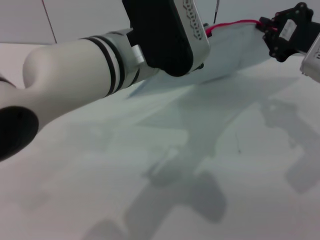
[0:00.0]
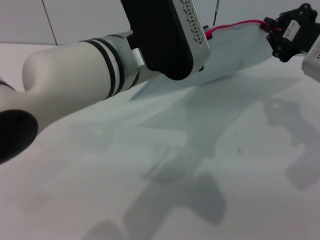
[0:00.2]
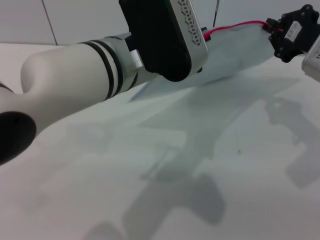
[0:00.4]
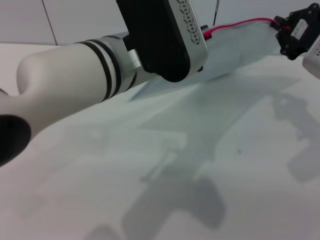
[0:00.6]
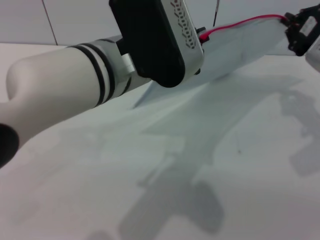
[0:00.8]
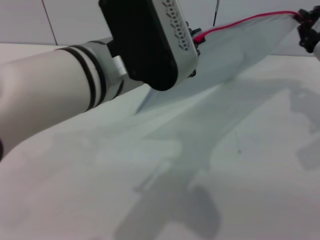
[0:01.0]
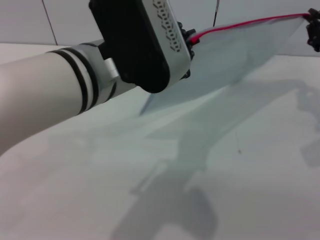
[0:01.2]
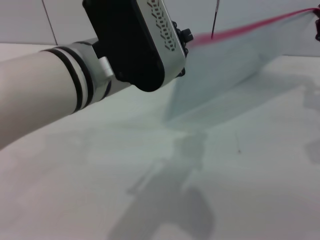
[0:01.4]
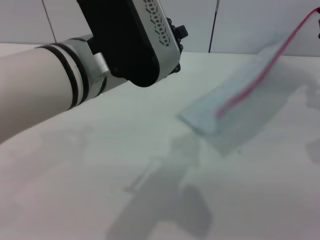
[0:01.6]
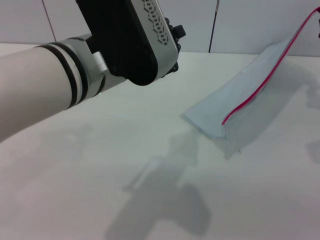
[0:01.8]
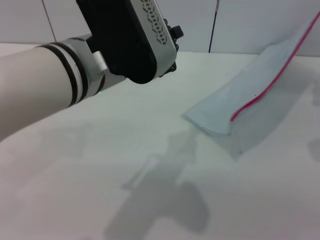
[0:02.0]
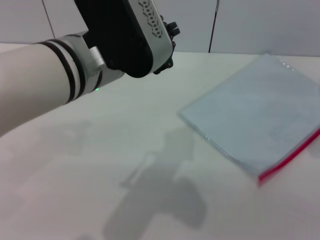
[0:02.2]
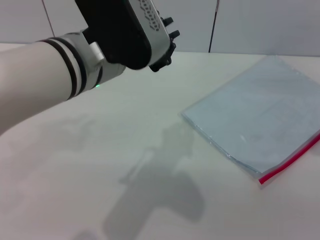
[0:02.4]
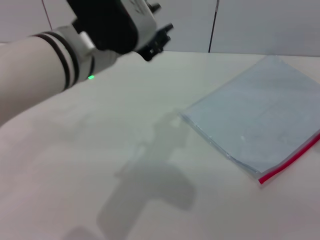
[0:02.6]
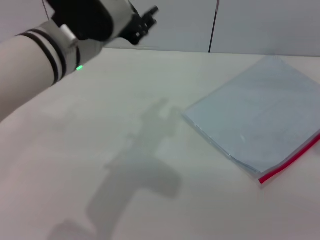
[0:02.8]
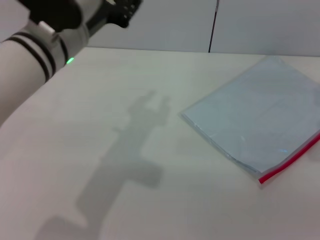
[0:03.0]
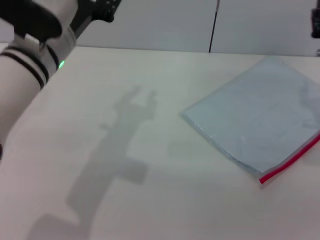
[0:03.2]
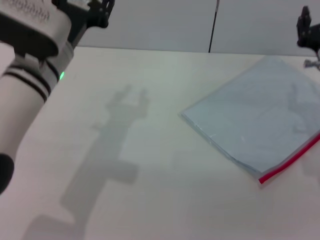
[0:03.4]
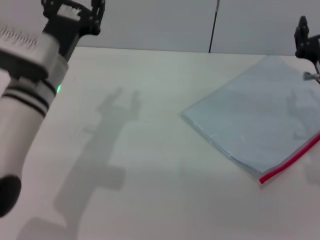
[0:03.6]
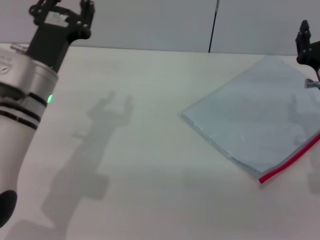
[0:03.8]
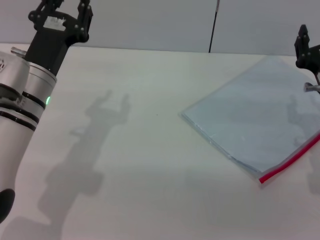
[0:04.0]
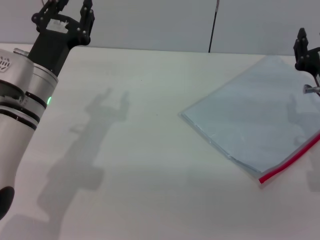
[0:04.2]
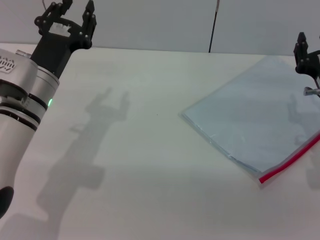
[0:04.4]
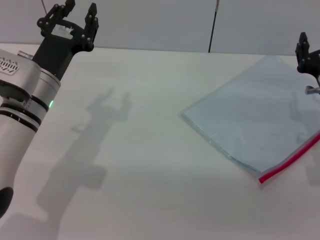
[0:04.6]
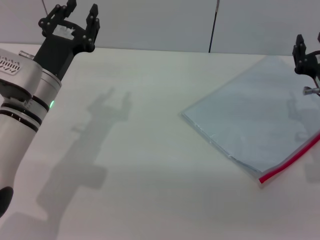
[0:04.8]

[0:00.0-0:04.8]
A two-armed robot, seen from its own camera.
Step, 0:02.0 to 0:03.2: Place the transparent plastic bag.
0:00.0 to 0:01.6: The right gripper is displaced to the right by some 5 cm.
0:01.6 to 0:03.2: The left gripper moves to the left, forward and downward, approximately 10 cm, and opens. The right gripper changes place by approximately 5 cm, and opens its fingers.
0:03.2 to 0:04.8: The right gripper is displaced downward by about 5 cm. The left gripper heads downward, covering approximately 10 cm.

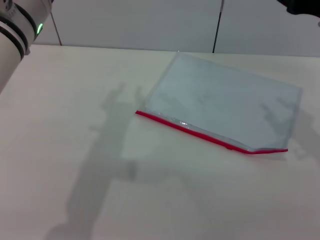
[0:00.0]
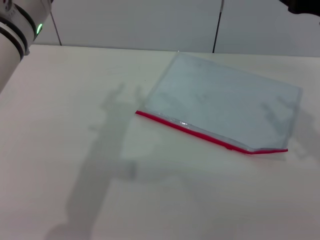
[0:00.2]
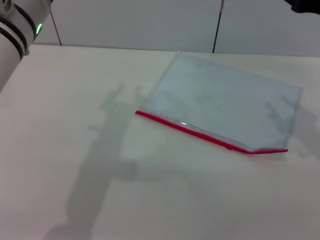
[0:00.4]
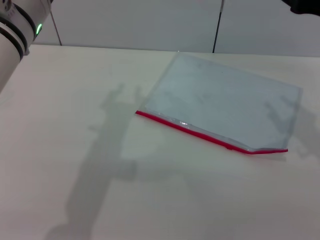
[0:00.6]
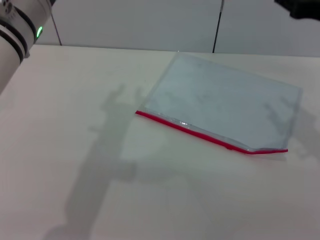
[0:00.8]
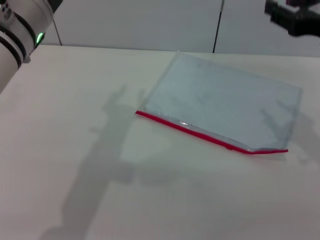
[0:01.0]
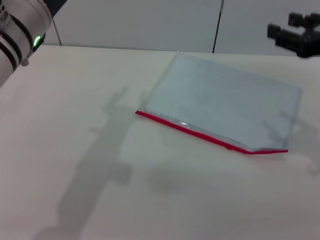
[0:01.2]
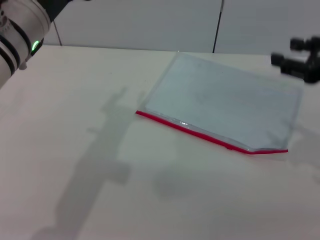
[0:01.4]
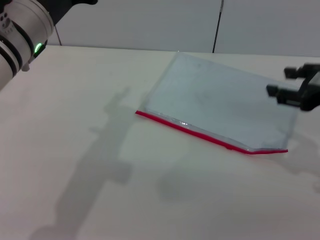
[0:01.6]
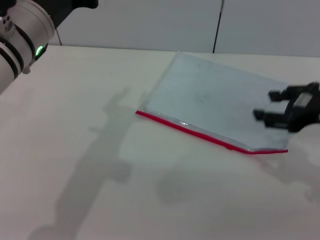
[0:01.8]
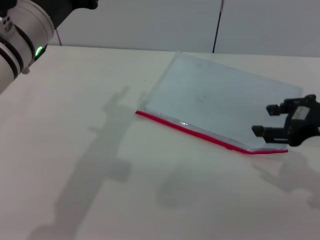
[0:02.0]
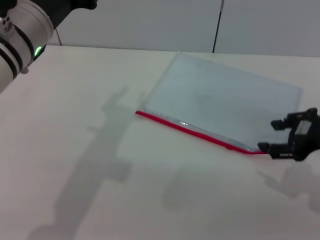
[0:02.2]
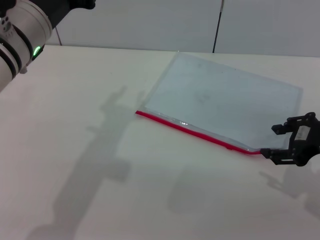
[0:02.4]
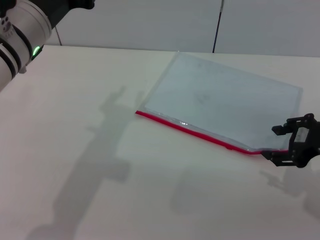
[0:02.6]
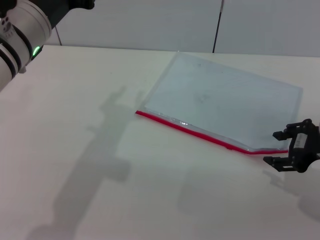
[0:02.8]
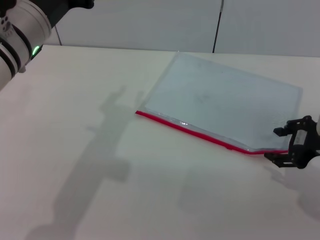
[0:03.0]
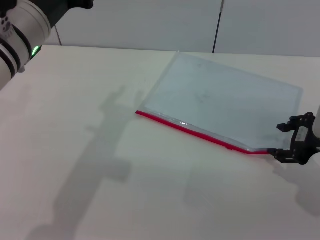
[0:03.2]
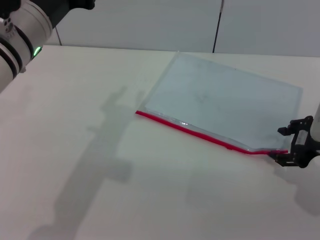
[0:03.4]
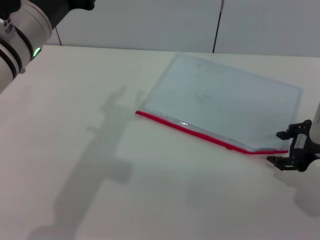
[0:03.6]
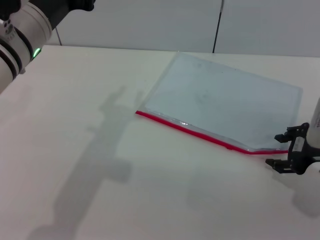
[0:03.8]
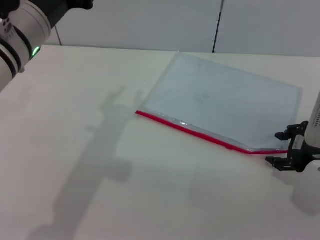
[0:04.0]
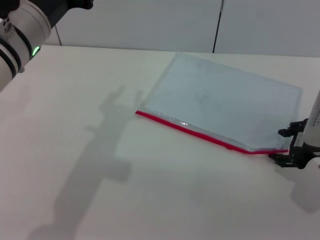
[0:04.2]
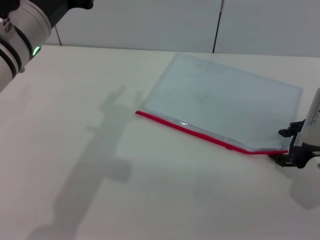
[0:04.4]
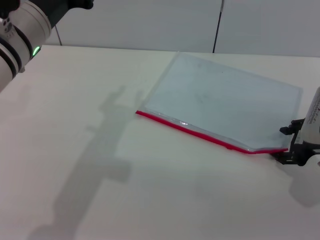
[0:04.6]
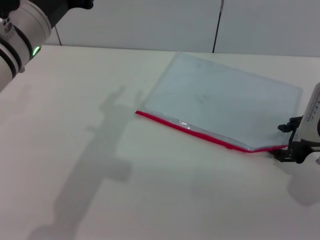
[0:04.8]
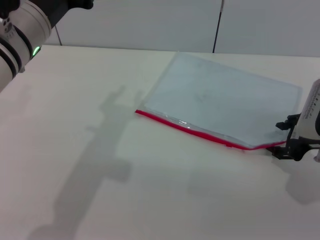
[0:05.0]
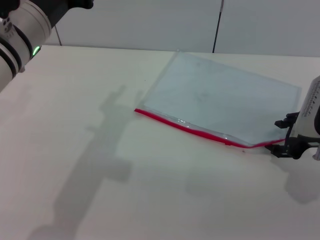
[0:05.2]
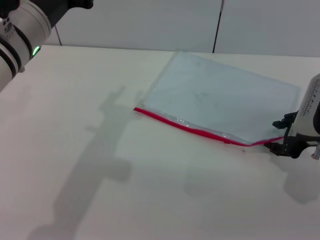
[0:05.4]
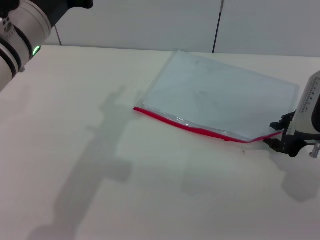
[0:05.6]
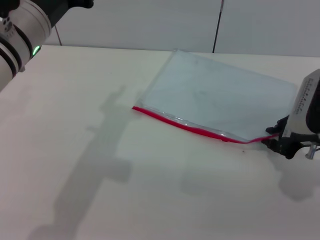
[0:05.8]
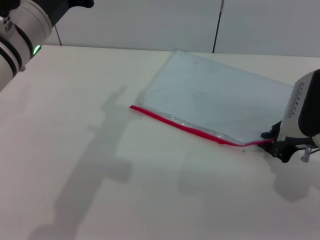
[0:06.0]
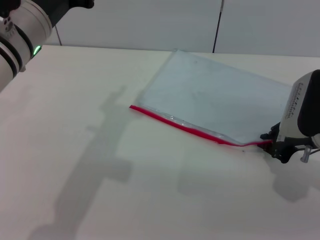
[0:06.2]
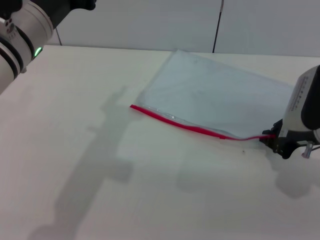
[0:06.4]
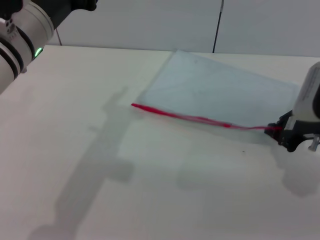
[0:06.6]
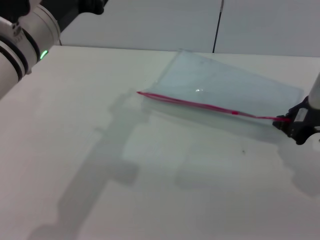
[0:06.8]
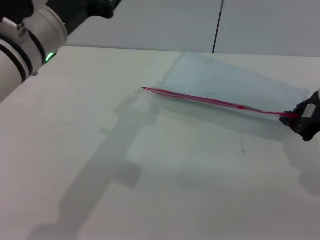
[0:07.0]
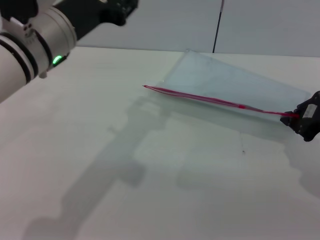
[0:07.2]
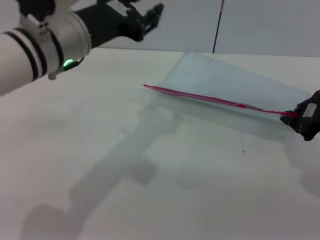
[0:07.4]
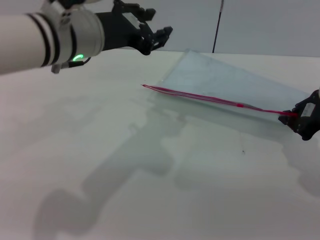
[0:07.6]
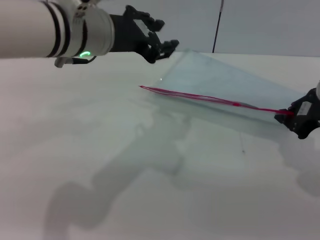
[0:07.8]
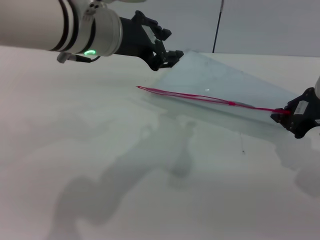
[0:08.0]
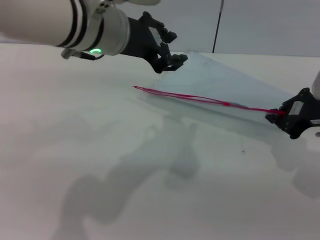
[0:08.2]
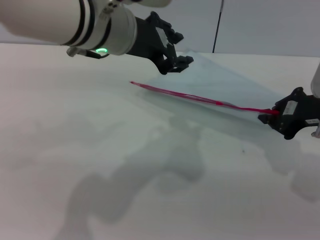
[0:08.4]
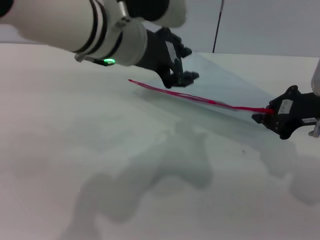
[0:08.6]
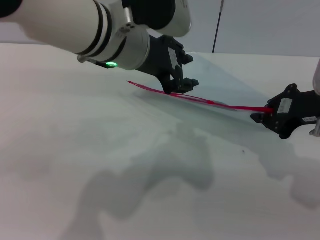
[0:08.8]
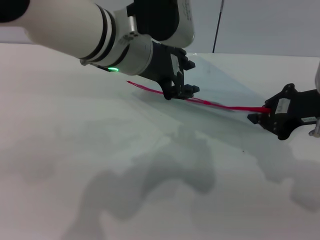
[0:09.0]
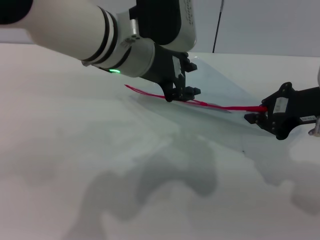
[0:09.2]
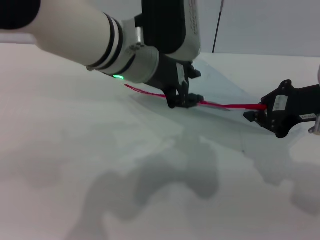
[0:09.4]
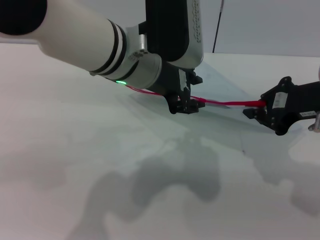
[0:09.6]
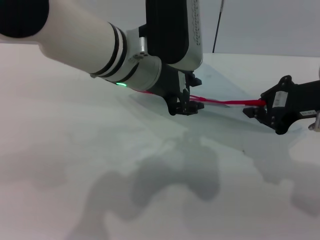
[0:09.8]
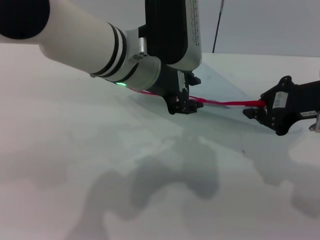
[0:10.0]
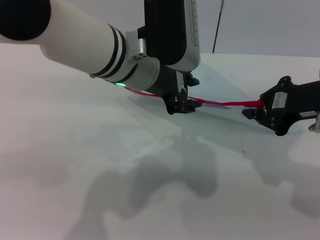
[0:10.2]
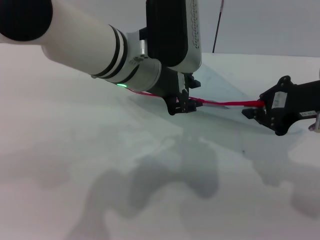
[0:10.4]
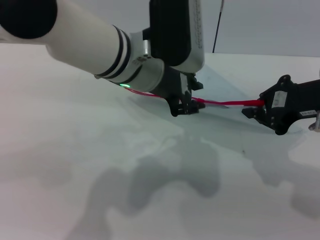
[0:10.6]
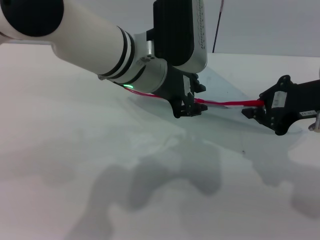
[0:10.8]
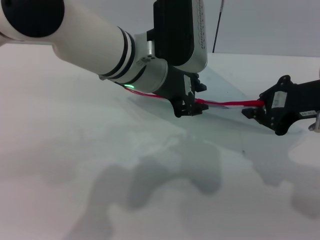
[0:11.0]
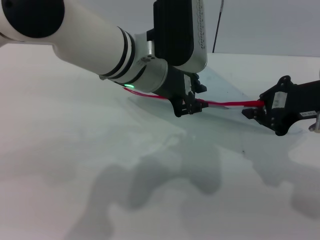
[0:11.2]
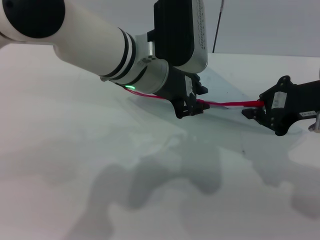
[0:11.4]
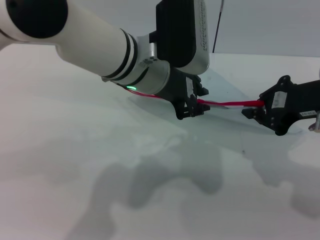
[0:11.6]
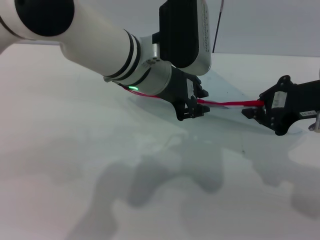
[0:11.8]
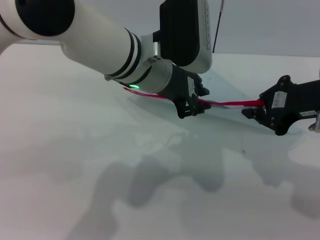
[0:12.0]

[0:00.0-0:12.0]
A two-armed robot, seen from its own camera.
Step, 0:00.0 to 0:08.4: Pick up the transparent plastic bag with the right gripper.
0:00.0 to 0:01.6: The right gripper changes place by roughly 5 cm.
0:01.6 to 0:03.0: The right gripper heads downward, covering approximately 5 cm.
0:03.0 to 0:04.4: The grippers move only a little.
0:04.4 to 0:06.0: The right gripper closes.
0:06.0 to 0:07.6: The right gripper shifts by approximately 5 cm.
0:07.6 to 0:09.0: The left gripper goes some 5 cm to the right.
0:09.0 to 0:12.0: The grippers stay close to where they were, moving slightly.

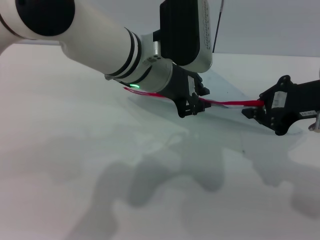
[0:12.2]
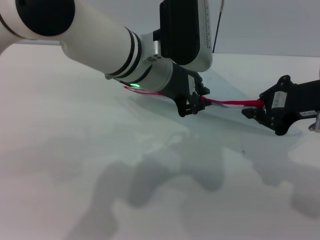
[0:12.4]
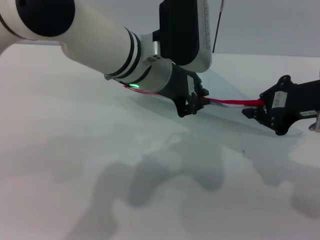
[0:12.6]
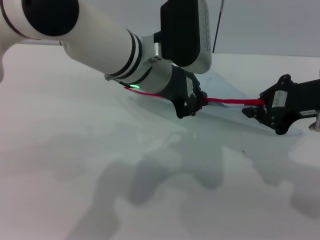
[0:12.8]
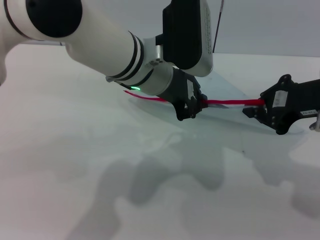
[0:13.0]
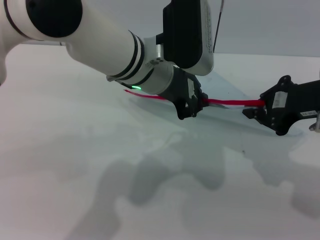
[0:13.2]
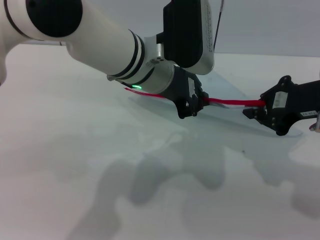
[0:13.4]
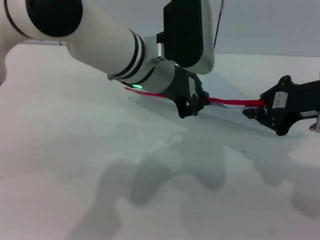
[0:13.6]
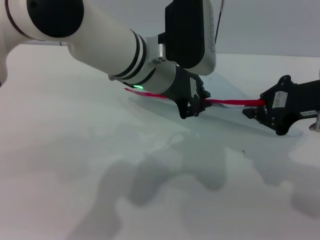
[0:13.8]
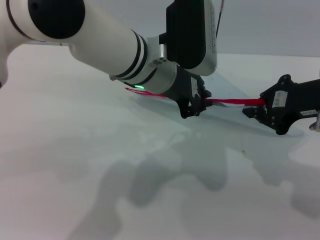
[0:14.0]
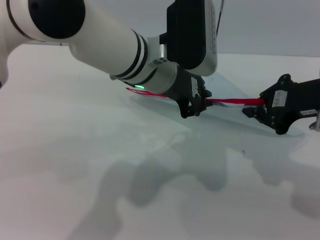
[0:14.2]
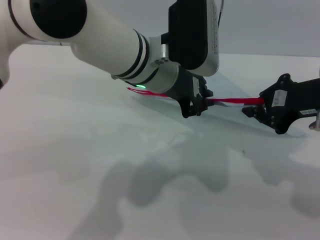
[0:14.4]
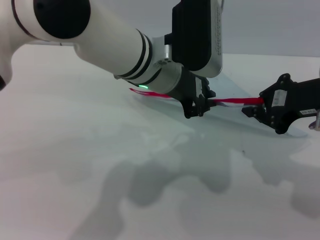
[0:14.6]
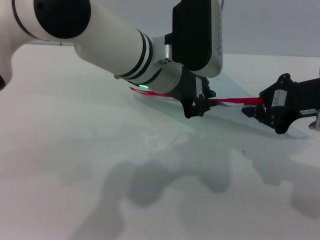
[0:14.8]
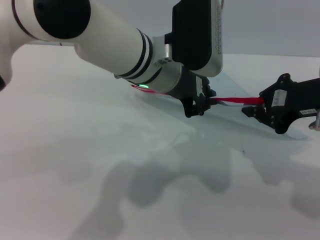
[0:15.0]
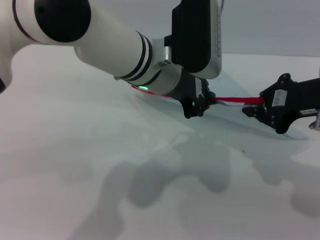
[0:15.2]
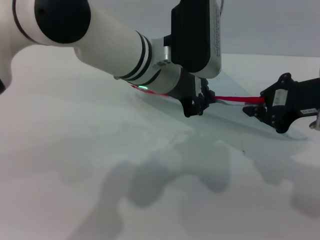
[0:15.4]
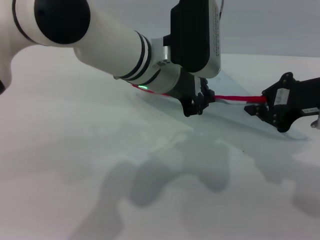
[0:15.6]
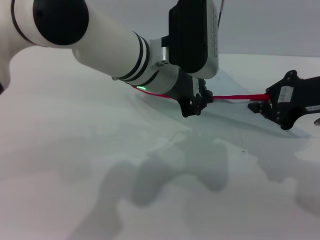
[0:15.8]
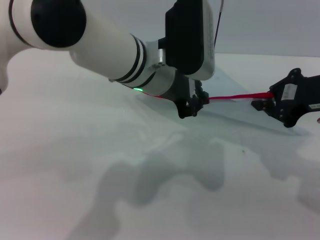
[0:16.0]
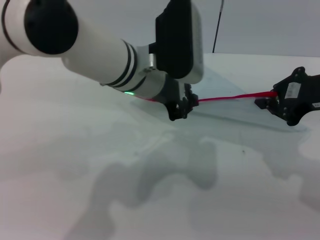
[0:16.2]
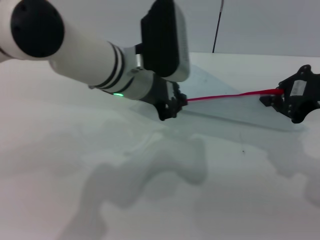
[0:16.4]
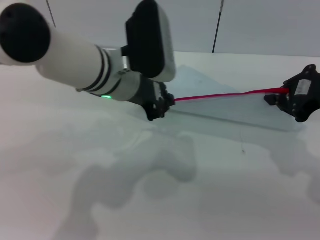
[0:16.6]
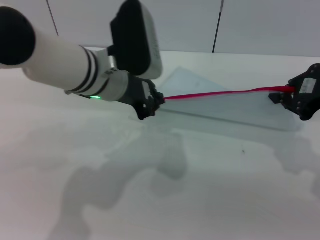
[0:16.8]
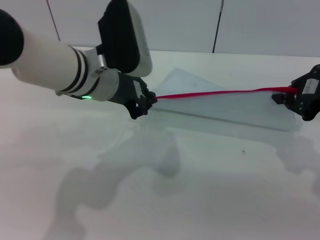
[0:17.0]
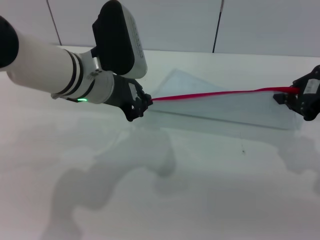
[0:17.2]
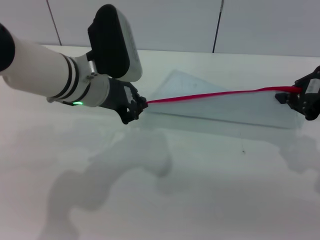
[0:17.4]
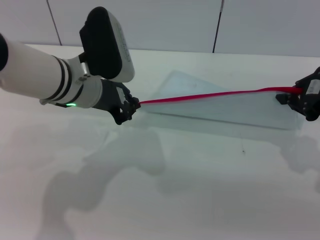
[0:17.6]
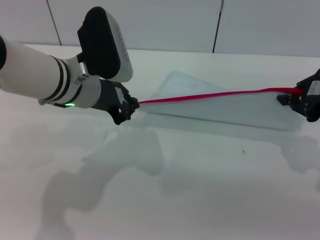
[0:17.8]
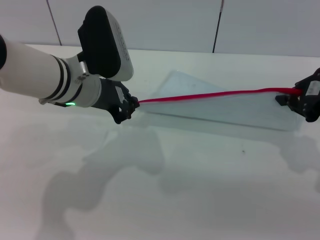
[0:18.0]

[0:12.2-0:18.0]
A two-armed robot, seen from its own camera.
0:12.2 to 0:15.0: Both grippers stay put.
0:15.0 to 0:16.6: The left gripper shifts about 5 cm to the left.
0:16.6 to 0:18.0: The left gripper shifts about 5 cm to the left.
